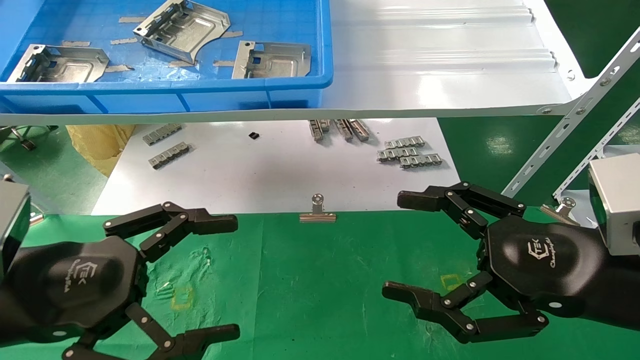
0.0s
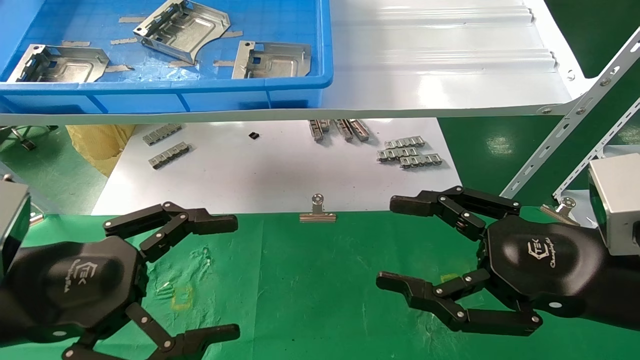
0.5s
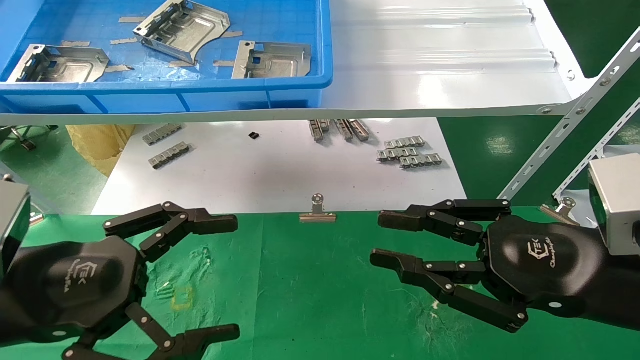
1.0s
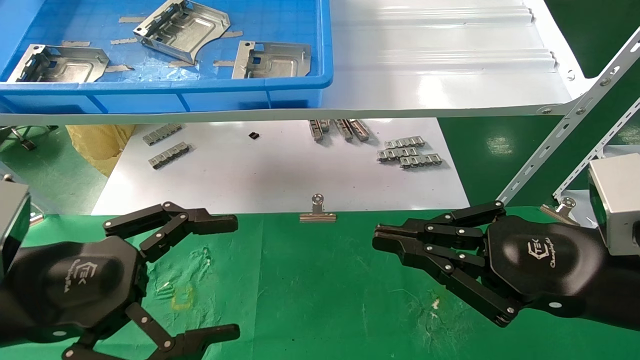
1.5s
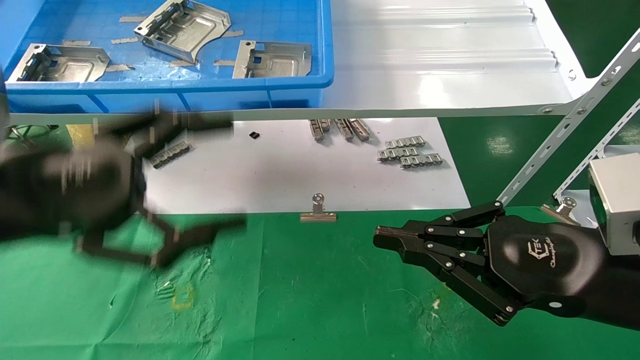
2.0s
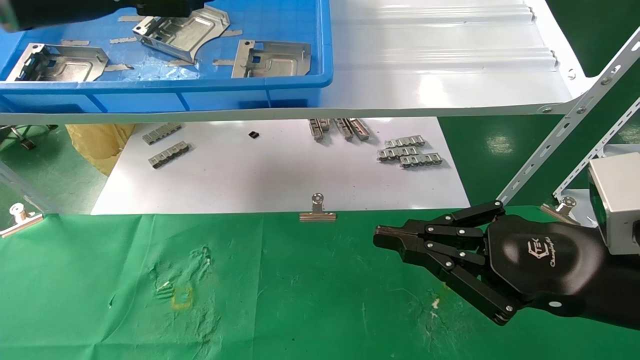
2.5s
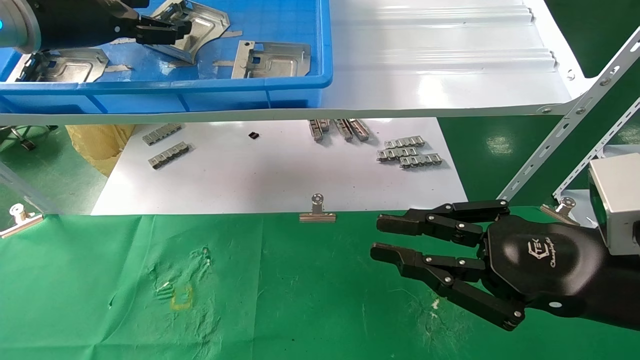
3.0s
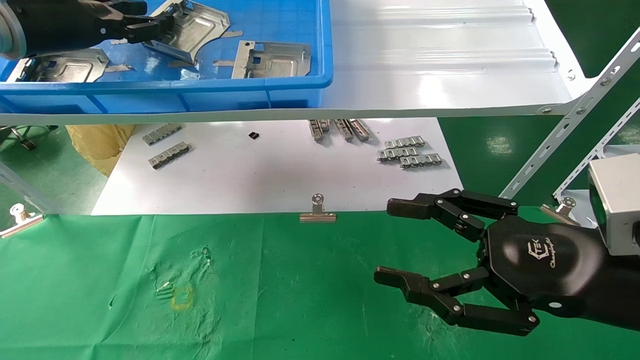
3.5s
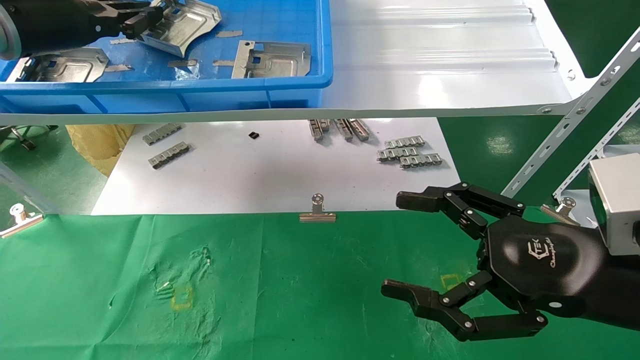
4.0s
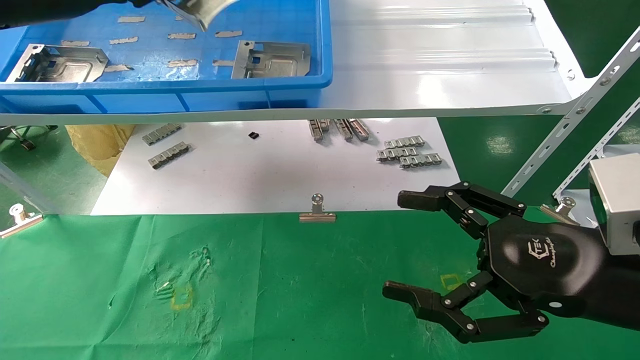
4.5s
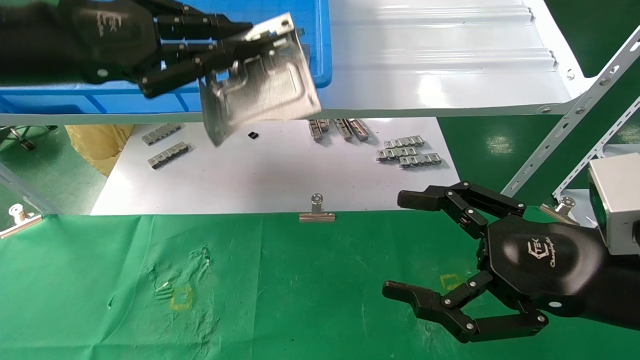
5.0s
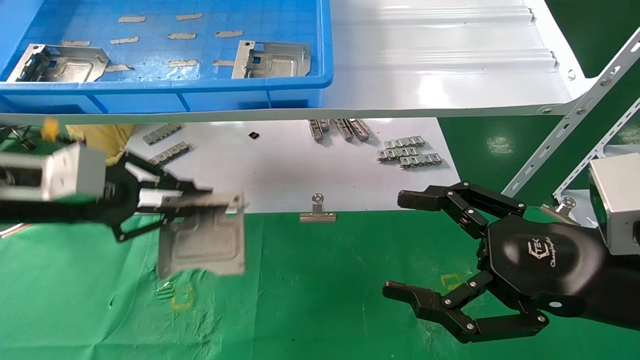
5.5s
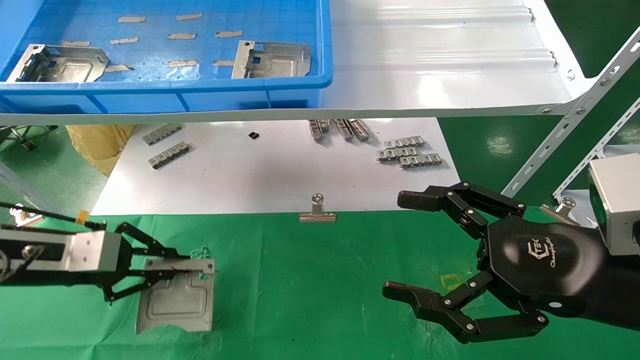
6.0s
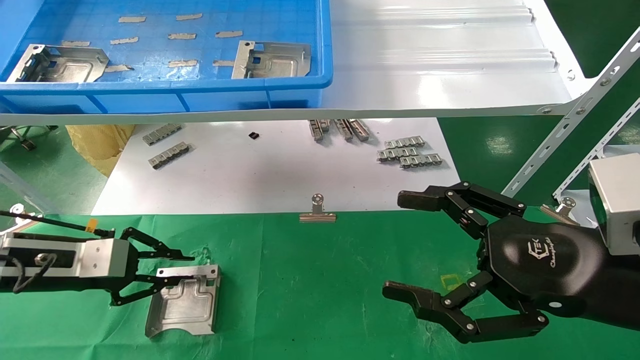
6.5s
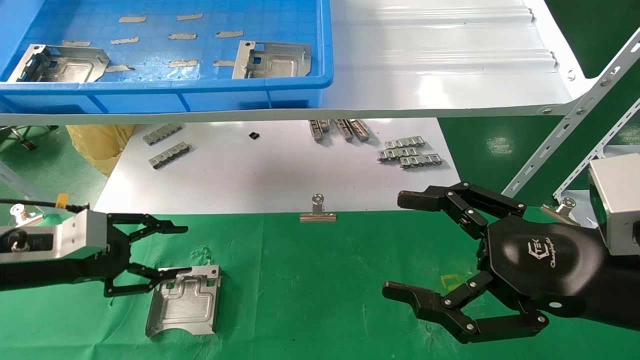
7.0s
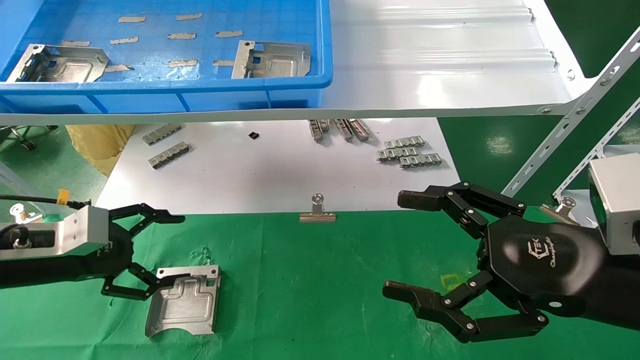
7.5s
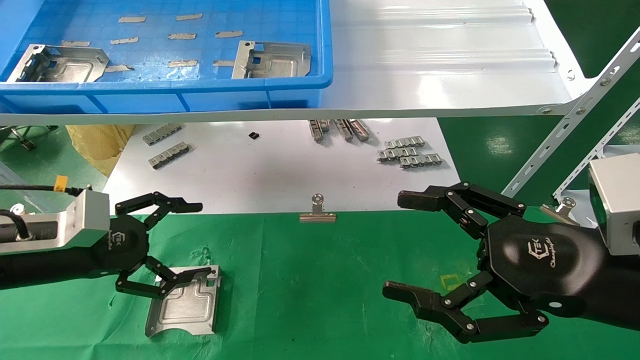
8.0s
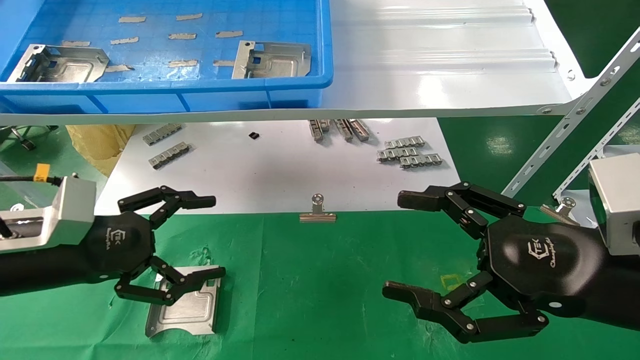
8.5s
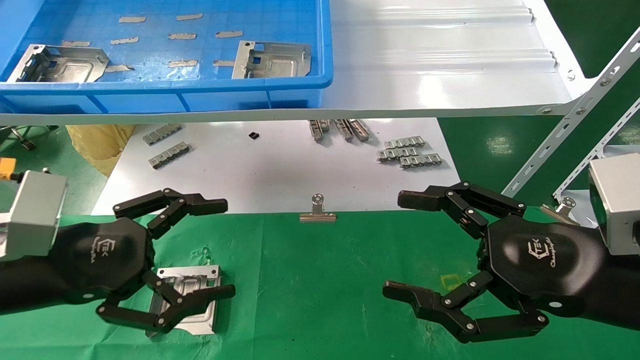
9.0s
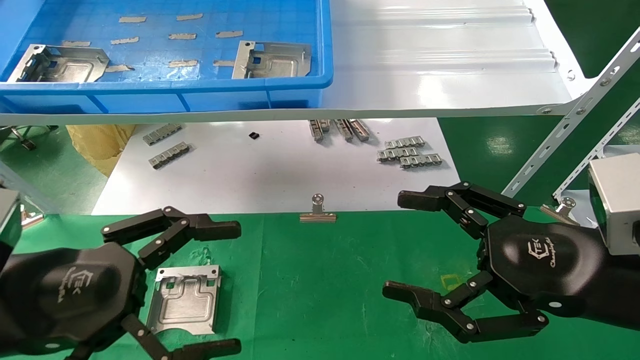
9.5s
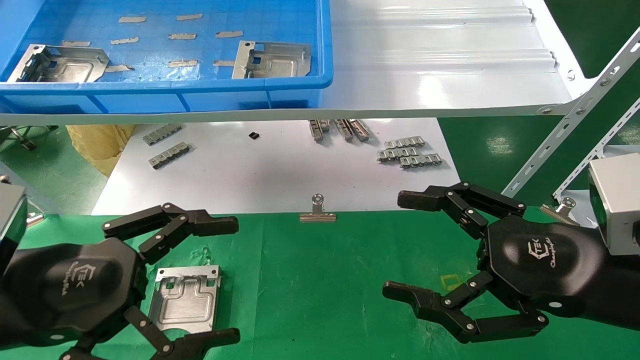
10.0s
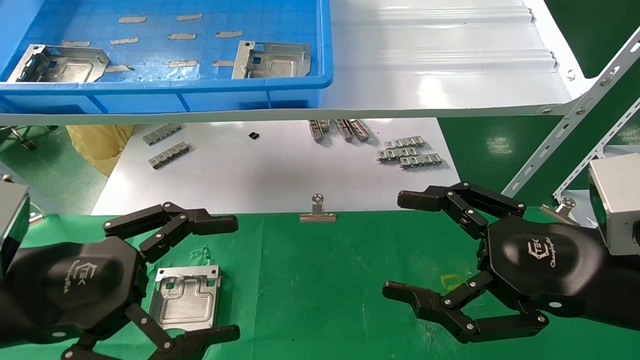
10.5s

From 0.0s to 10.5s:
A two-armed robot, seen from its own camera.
Task of the whole recording: use the mechanical arm to pick up the parts and place them on the table.
Step, from 2.5s to 4.0s: Pick up the hard drive bracket from the feeding area.
Step, from 4.5s to 6.5s: Place the hard drive bracket into the box.
From 0.0s to 2.0s: The left gripper goes roughly 10 cm upward. The right gripper closes its fingers.
From 2.0s to 4.0s: The right gripper opens its fingers. The left gripper goes about 20 cm forward and upward, and closes.
From 4.0s to 6.5s: The left gripper is displaced downward by some 25 cm.
From 6.5s to 8.5s: The left gripper travels backward and to the right by roughly 10 cm, and opens its fingers.
From 8.5s to 10.5s: The left gripper is displaced backward by about 10 cm.

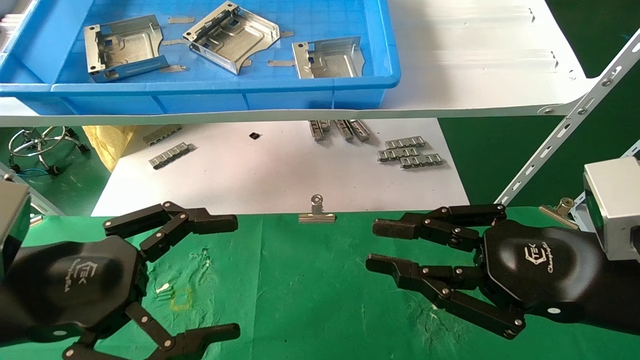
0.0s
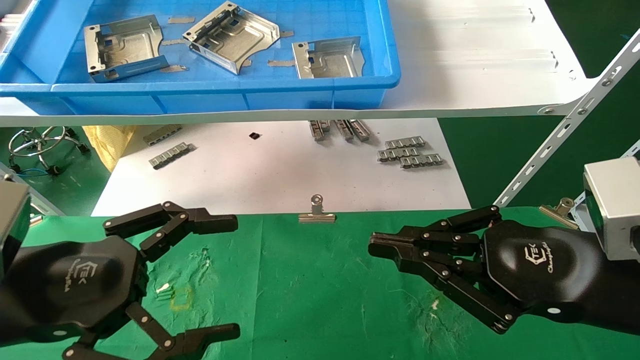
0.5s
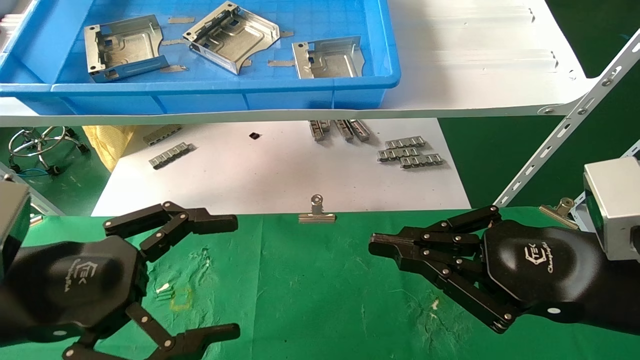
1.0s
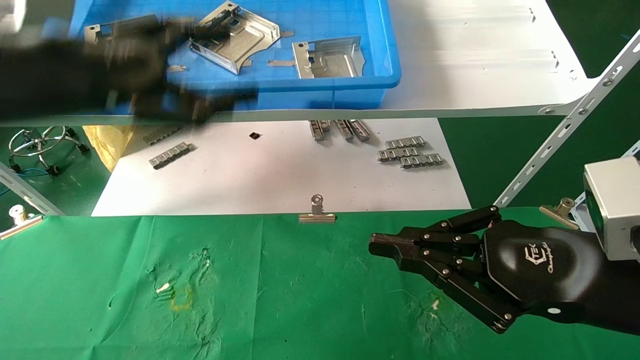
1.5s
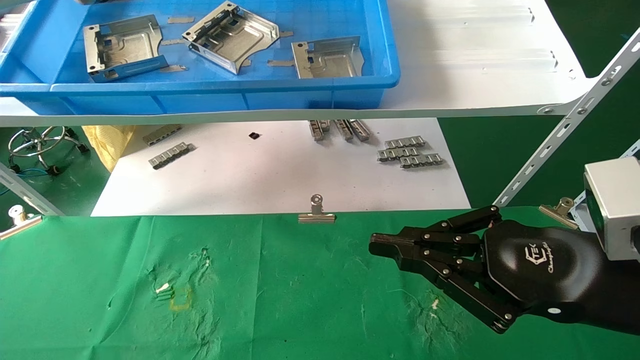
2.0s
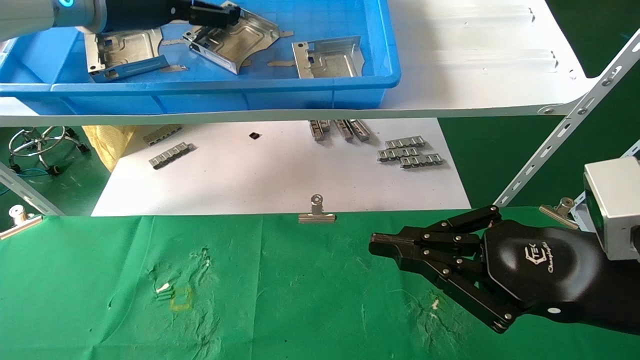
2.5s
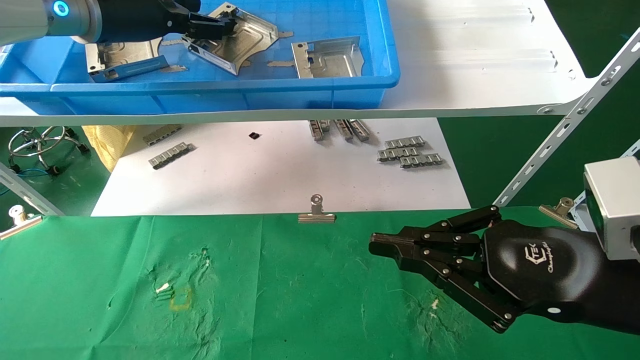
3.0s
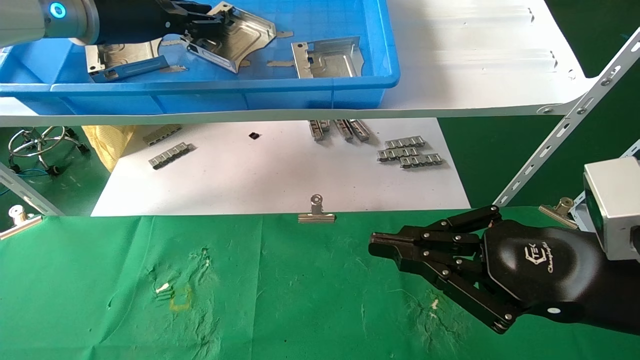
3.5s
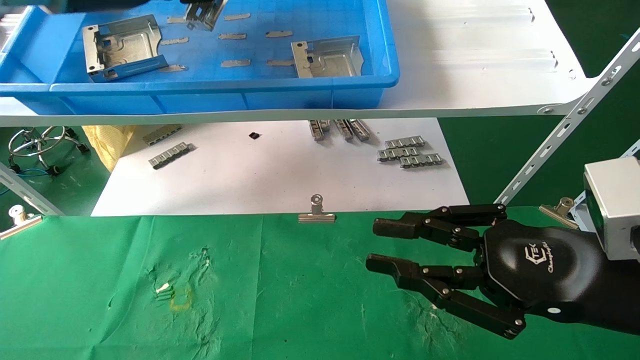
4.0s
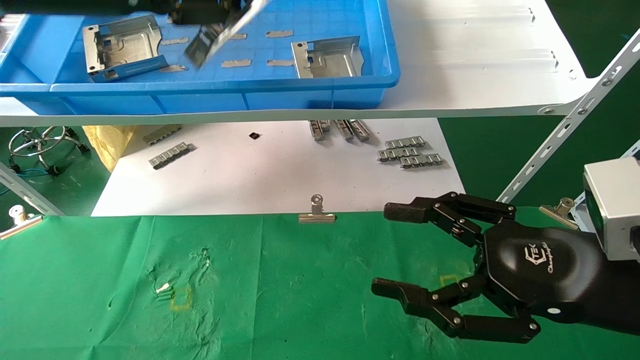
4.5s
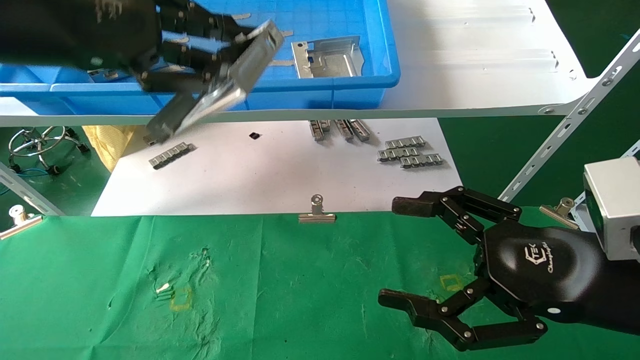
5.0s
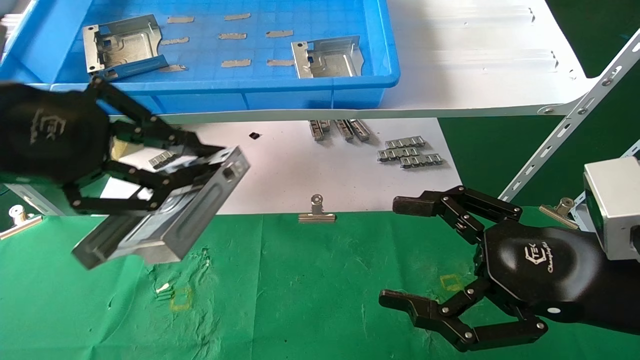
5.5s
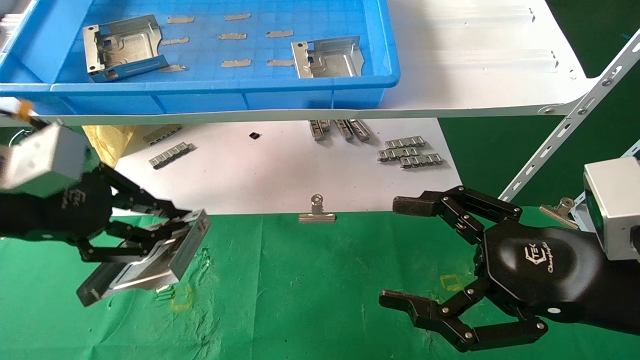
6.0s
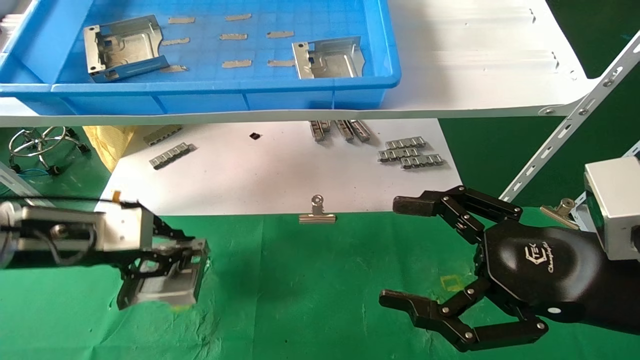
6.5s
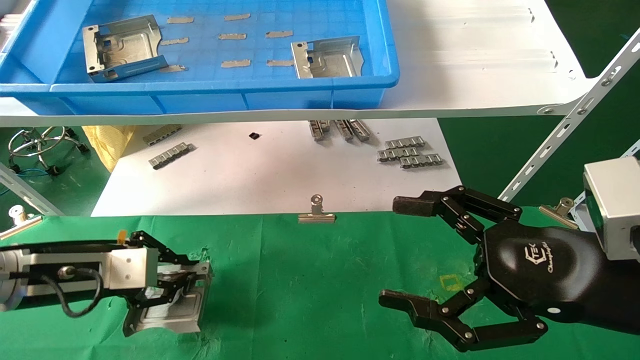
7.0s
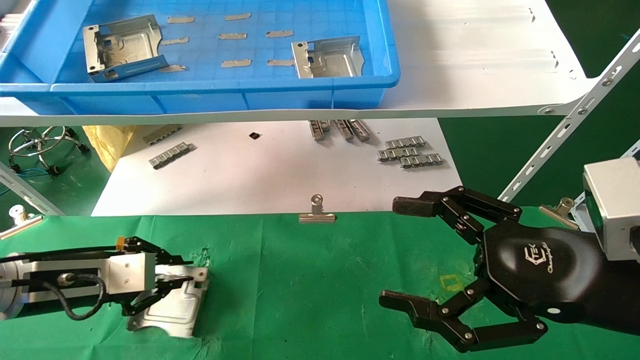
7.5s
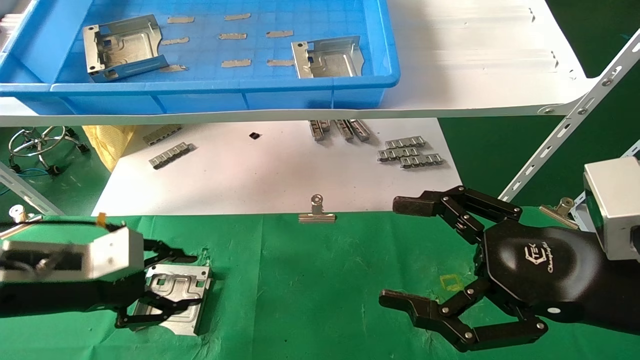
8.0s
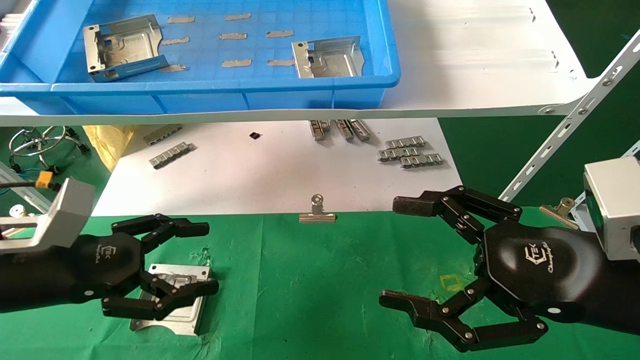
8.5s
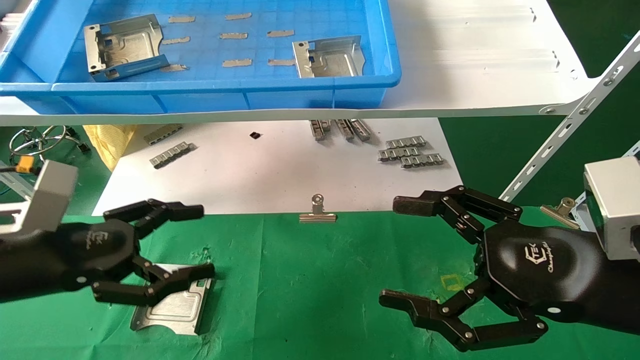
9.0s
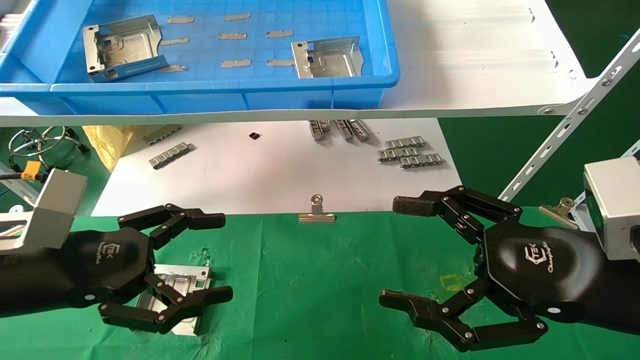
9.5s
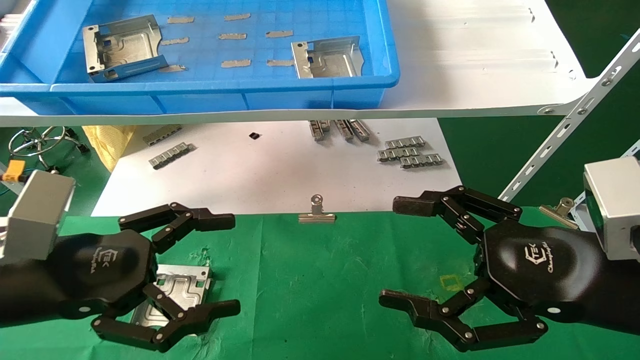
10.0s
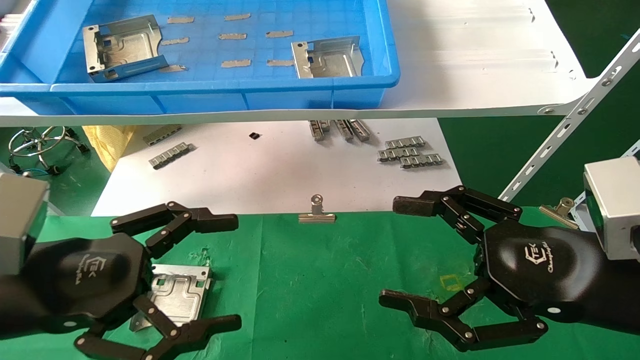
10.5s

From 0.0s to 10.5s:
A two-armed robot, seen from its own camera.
Task of the whole recording: use the mechanical arm to pick up the parts and place them on the table.
Step, from 1.5s to 3.5s: Pick up the hard drive bracket from the feeding area.
Step, from 4.0s to 7.0s: Place the hard drive bracket into the box.
From 0.0s to 2.0s: The left gripper heads upward and forward, covering approximately 30 cm.
From 2.0s to 4.0s: The left gripper closes its fingers.
From 4.0s to 6.5s: The right gripper opens its fingers. Meanwhile the left gripper moves downward, about 25 cm.
From 6.5s to 8.5s: The left gripper shifts by about 5 cm, and opens its fingers.
From 8.5s to 10.5s: The left gripper shifts some 5 cm backward.
